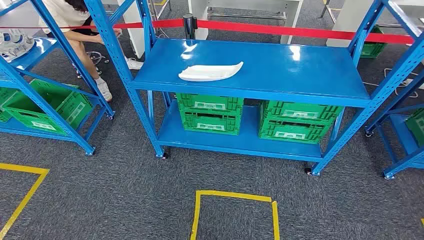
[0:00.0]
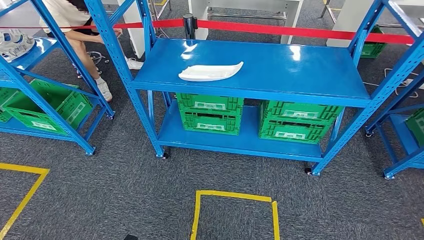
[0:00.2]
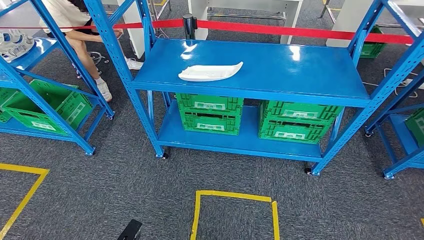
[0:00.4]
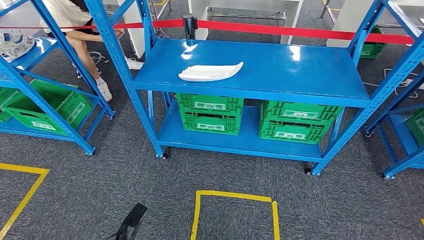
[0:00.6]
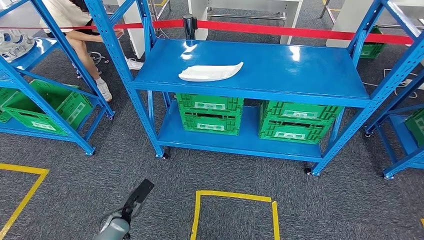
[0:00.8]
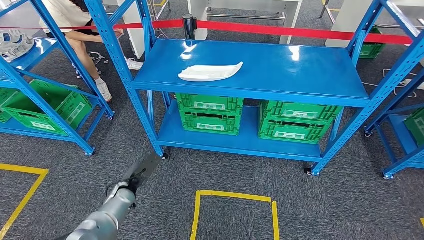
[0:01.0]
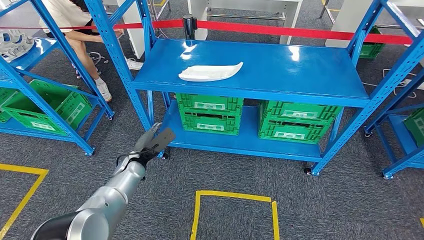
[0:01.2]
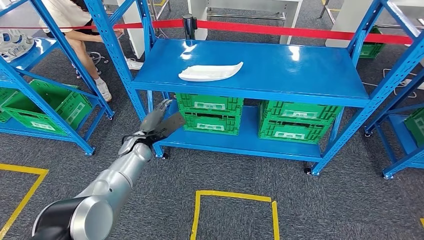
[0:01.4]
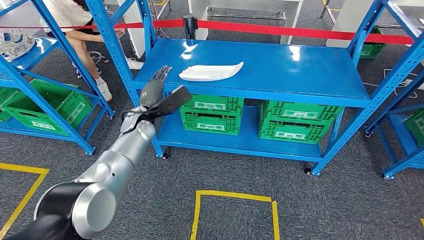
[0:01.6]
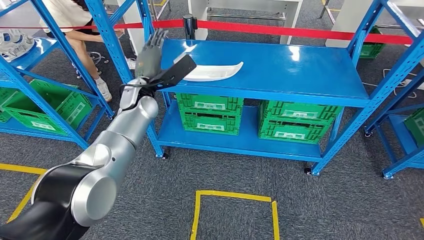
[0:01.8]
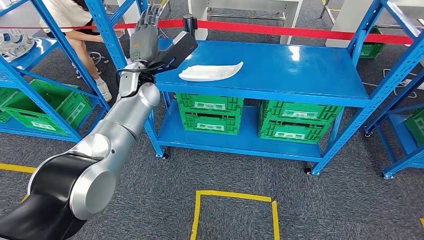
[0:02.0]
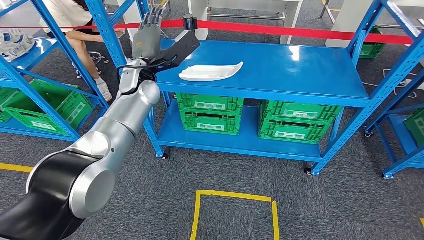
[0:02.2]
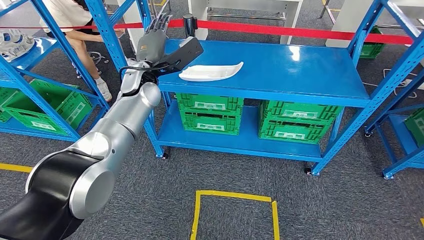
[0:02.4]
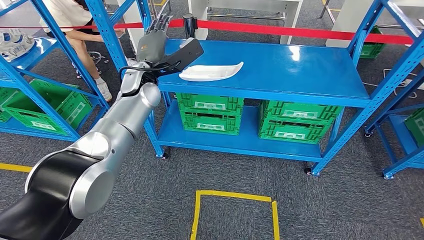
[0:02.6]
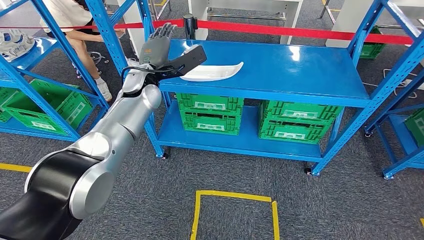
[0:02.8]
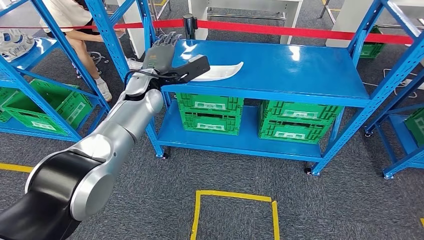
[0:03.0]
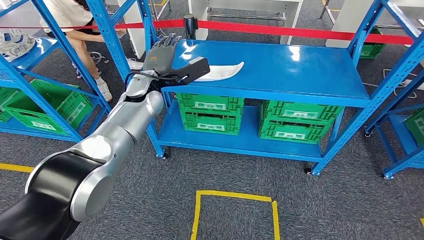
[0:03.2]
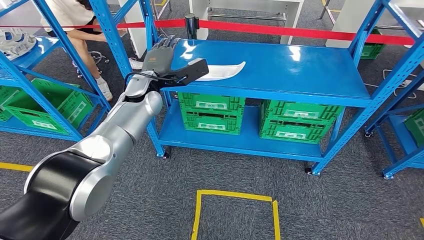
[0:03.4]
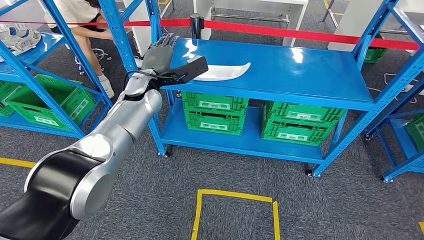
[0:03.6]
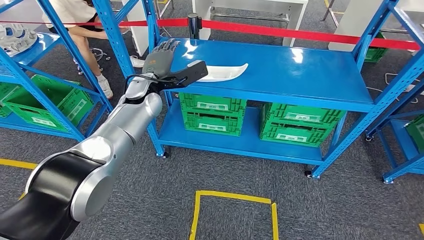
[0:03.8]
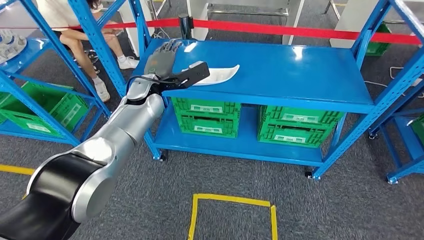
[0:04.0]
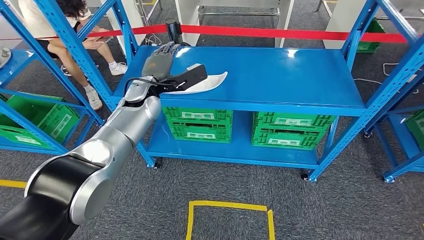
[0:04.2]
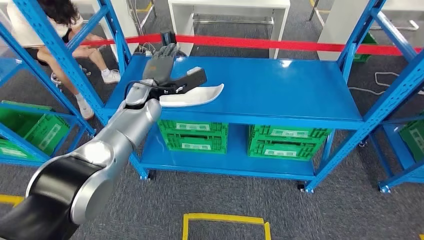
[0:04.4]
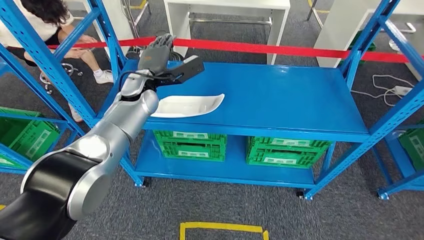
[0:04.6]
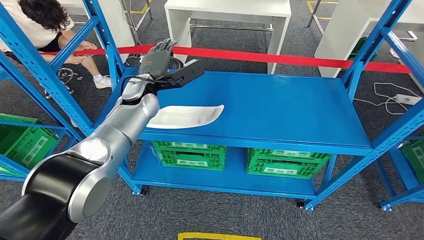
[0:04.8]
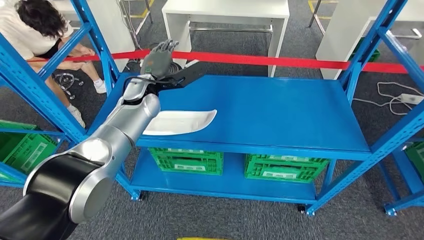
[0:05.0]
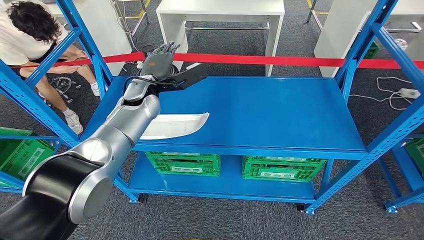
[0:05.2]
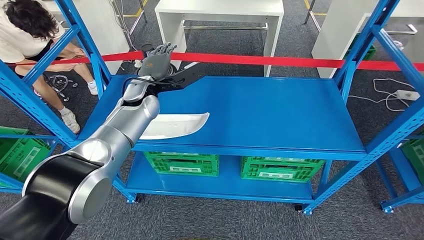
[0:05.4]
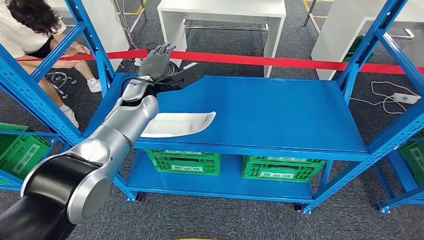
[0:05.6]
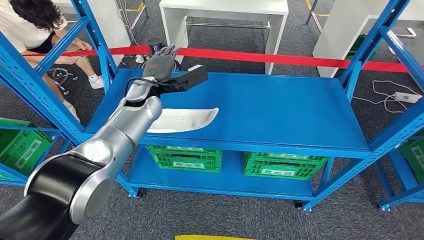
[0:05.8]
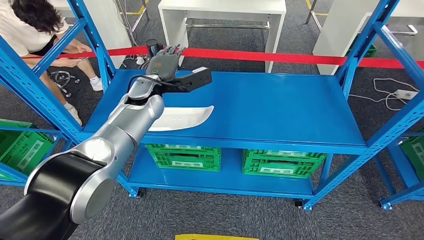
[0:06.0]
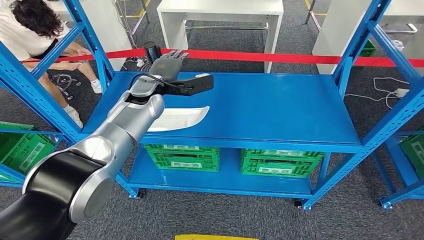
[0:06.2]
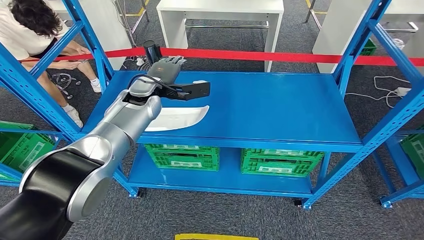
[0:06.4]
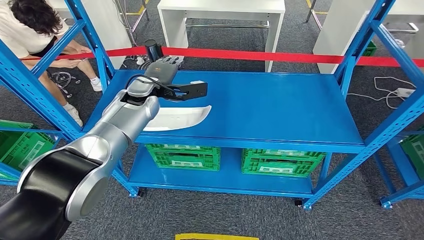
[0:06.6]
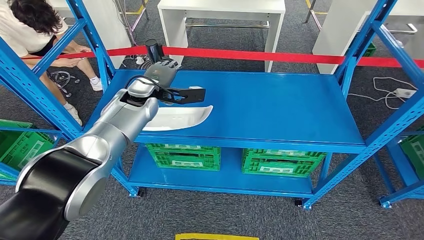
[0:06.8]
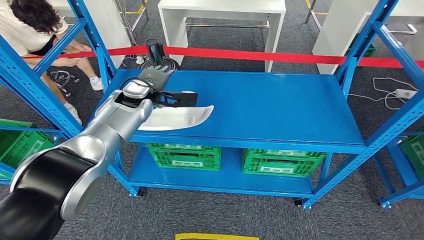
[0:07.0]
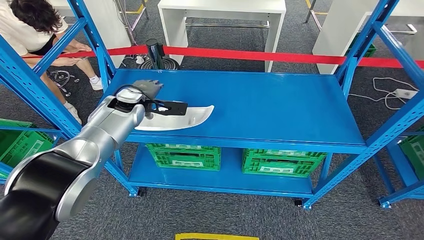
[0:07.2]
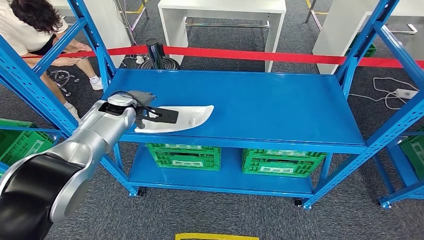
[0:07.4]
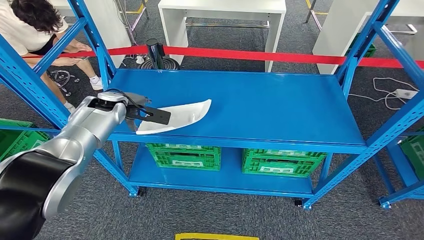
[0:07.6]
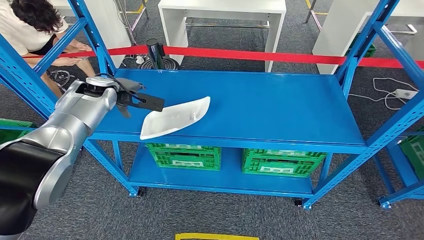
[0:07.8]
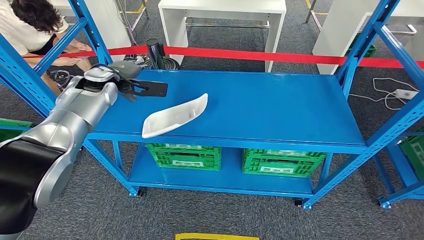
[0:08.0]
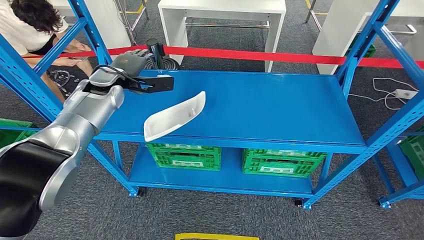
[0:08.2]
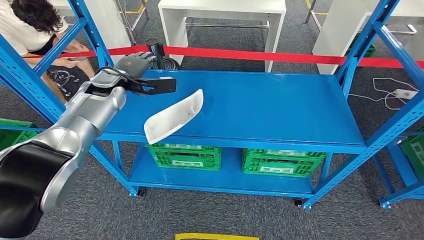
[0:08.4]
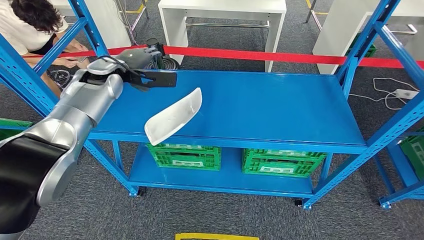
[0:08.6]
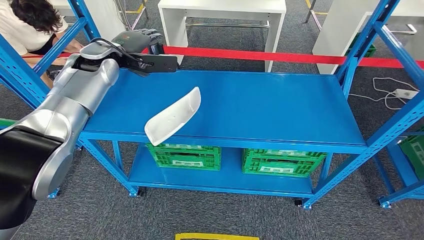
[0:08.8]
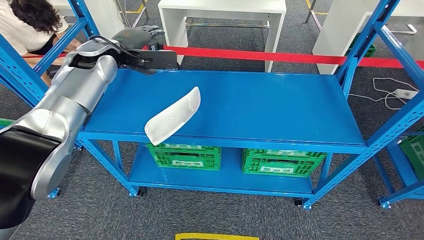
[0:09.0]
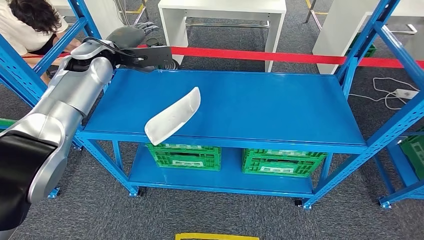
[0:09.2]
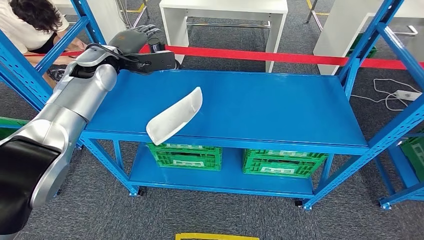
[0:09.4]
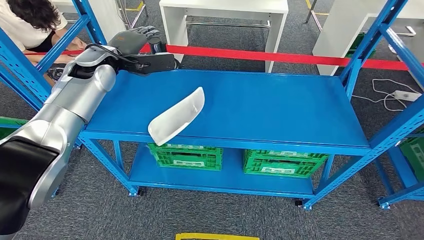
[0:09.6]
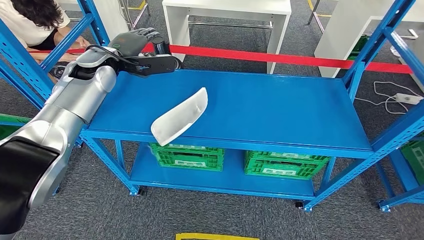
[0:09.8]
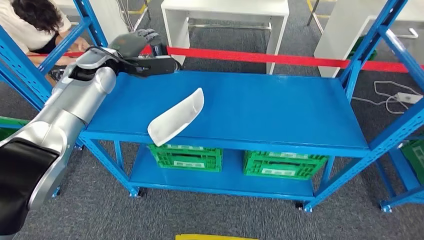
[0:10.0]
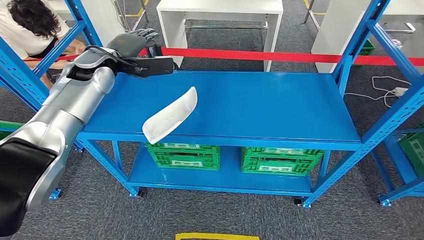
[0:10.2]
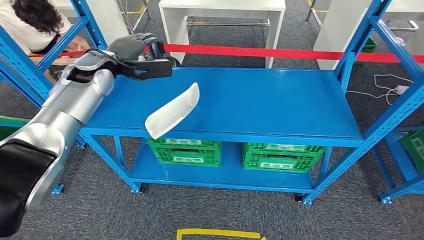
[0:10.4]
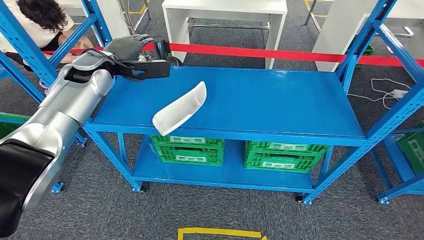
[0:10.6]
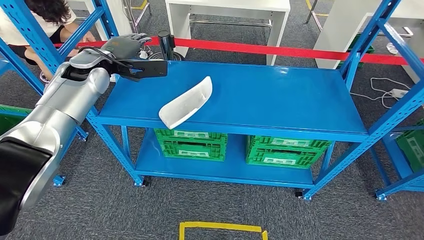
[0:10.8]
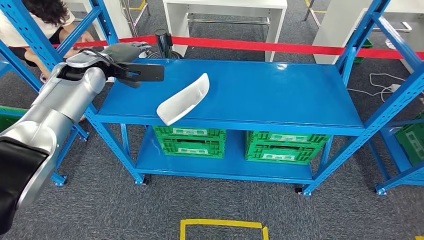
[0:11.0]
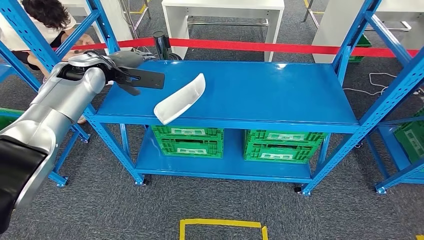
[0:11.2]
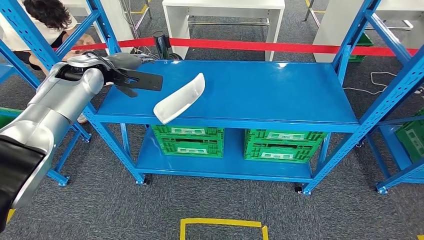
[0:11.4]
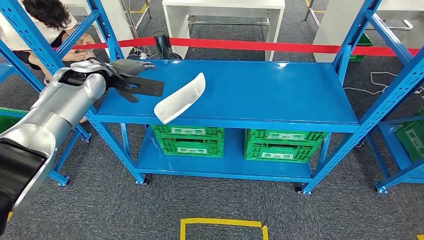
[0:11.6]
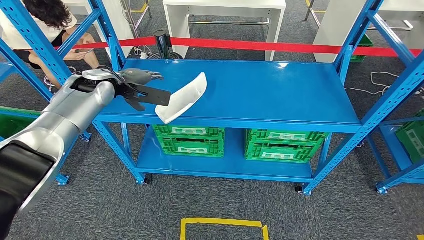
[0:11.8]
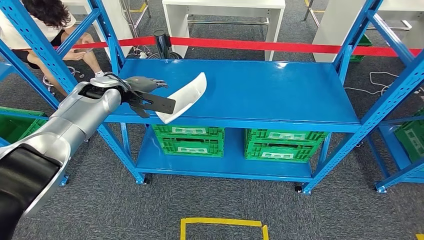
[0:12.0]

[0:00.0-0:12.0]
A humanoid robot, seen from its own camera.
0:01.6 to 0:03.0: The left hand travels upward by about 10 cm.
0:06.0 to 0:07.6: The left hand moves to the left, some 15 cm.
0:07.6 to 0:09.0: The left hand shifts some 15 cm upward.

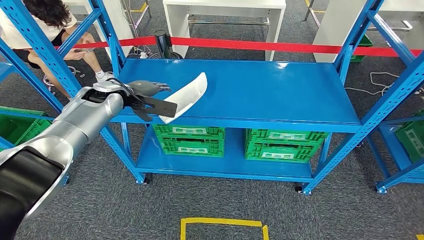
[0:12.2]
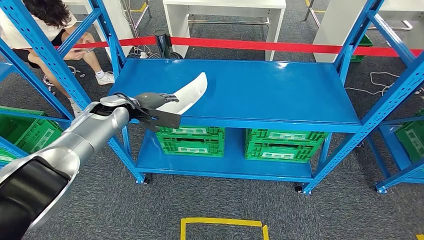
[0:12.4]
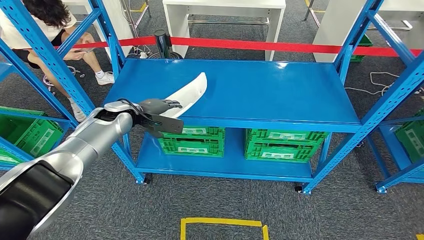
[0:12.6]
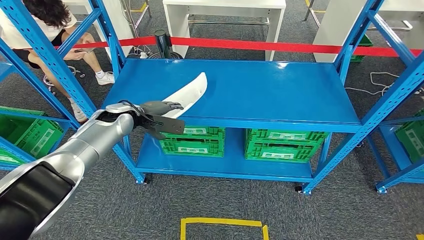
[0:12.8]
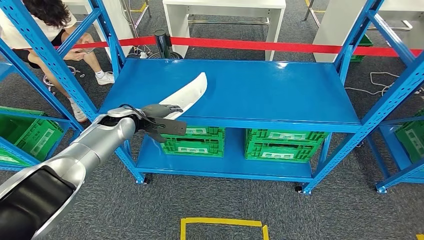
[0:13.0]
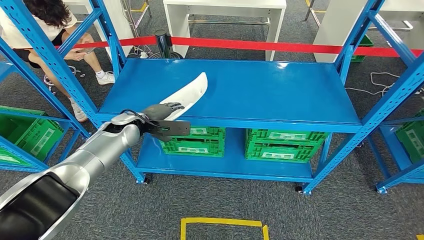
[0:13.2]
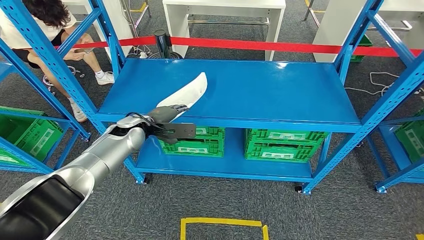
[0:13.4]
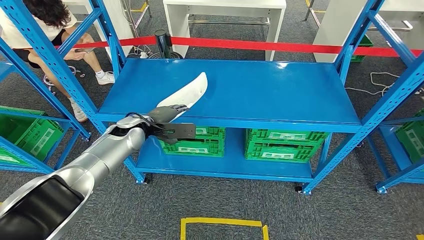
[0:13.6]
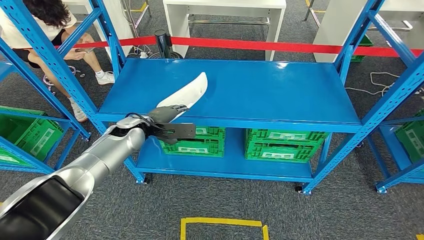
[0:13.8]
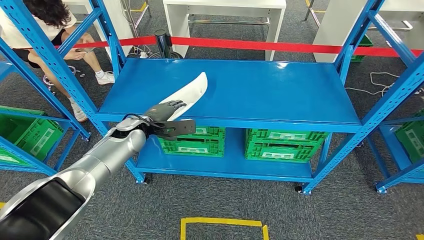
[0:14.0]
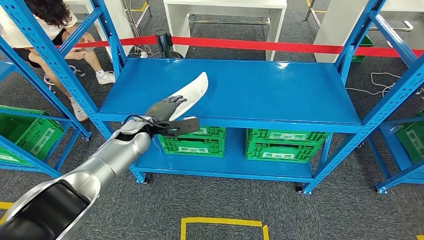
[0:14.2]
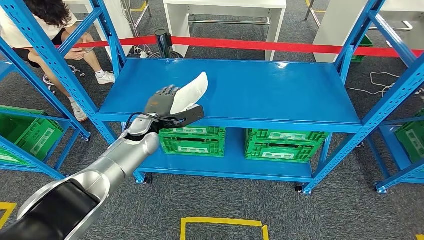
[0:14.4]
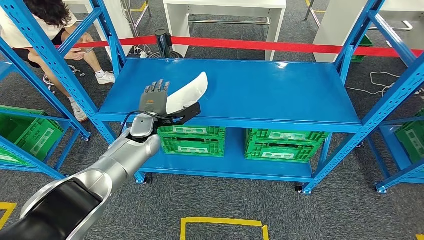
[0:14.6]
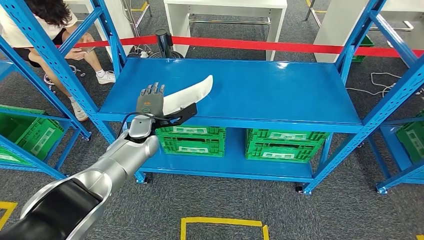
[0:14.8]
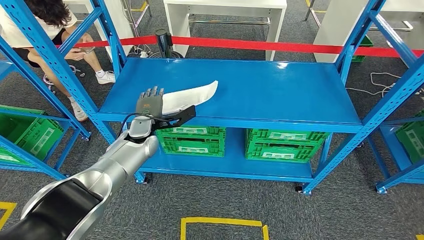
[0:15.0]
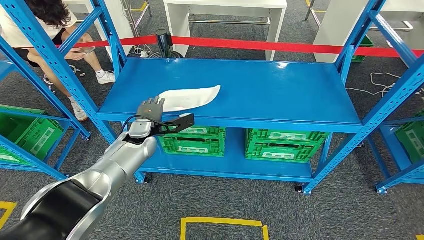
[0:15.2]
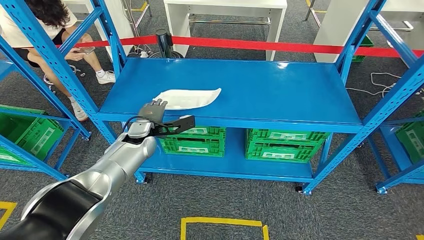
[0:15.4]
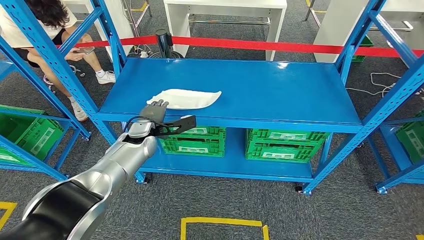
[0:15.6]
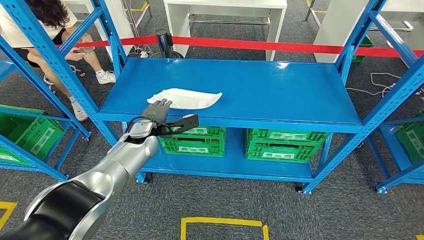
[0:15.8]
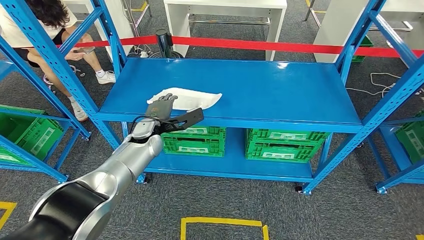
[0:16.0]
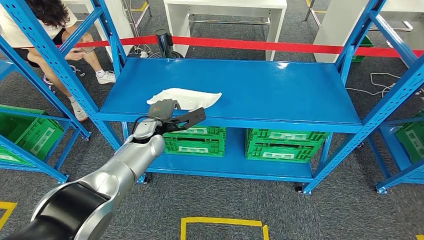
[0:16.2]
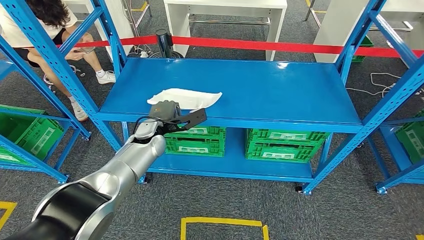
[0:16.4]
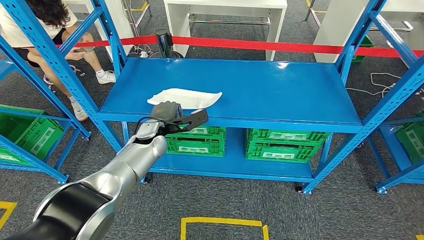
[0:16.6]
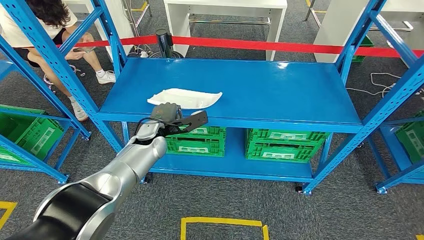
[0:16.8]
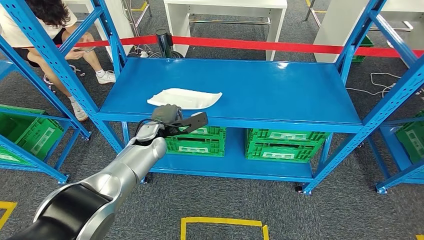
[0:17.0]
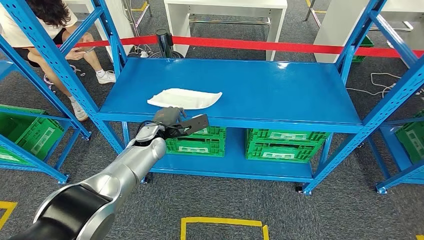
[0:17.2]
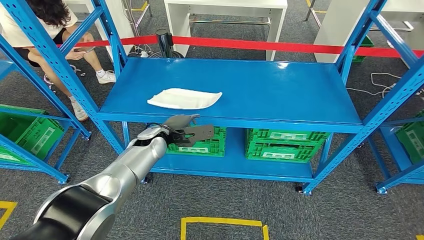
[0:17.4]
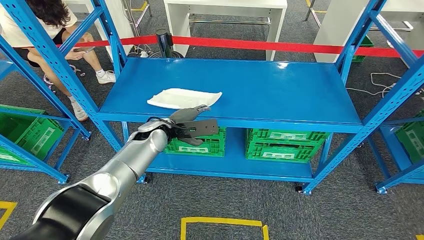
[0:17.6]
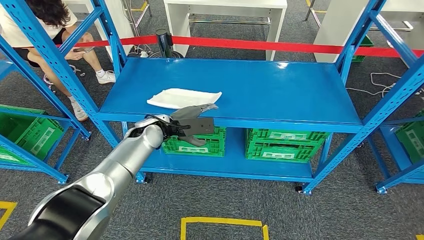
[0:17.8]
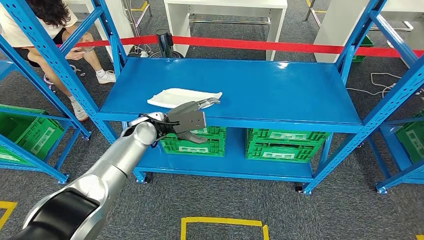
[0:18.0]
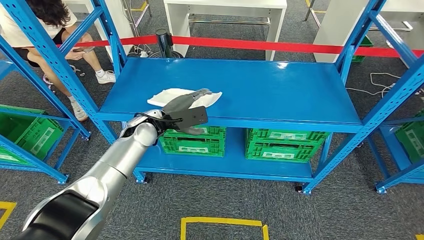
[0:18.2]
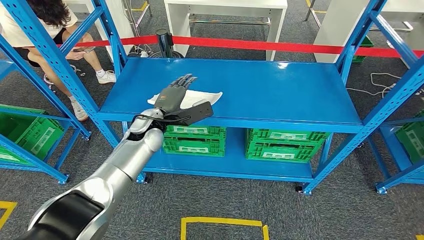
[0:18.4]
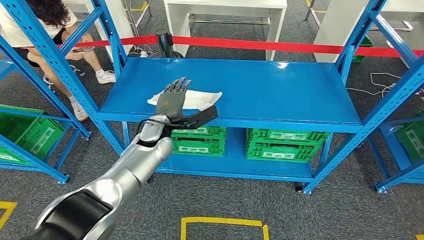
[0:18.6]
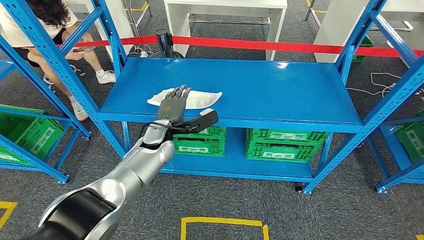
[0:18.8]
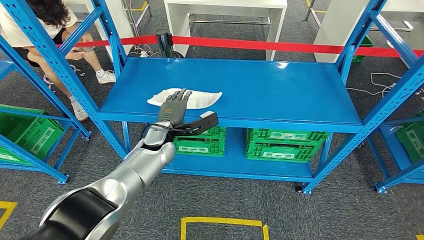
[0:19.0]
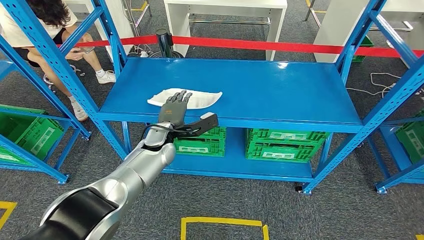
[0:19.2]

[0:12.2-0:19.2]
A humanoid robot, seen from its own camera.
0:12.2 to 0:13.6: The left hand moves downward and to the right, roughly 10 cm.
0:15.0 to 0:16.4: The hands move only a little.
